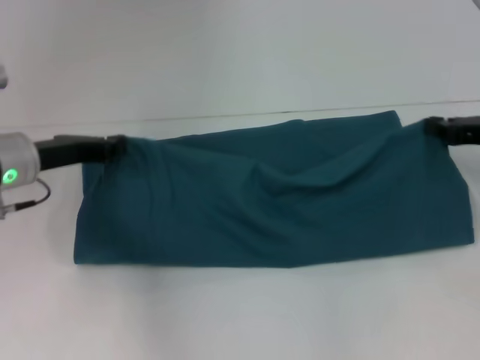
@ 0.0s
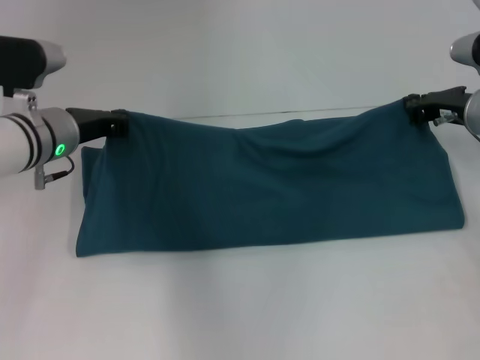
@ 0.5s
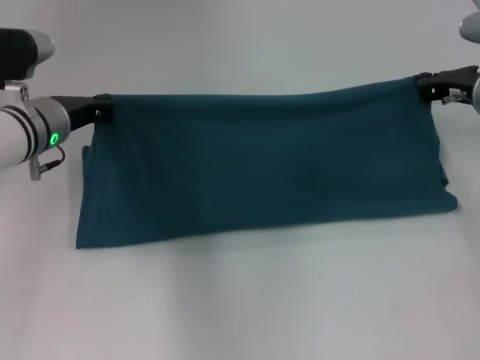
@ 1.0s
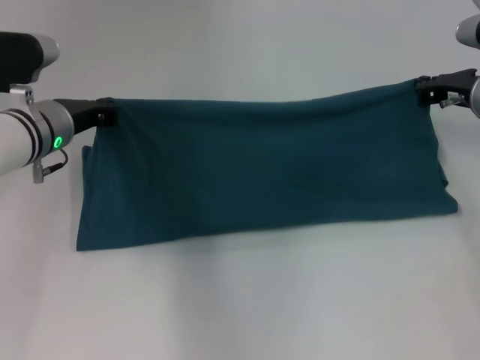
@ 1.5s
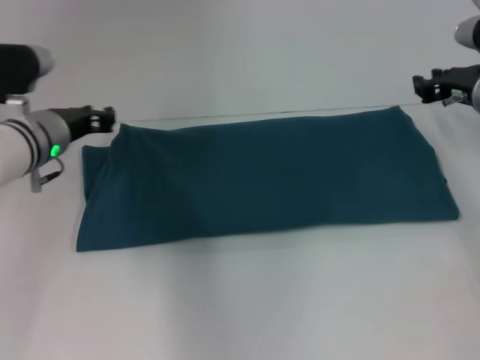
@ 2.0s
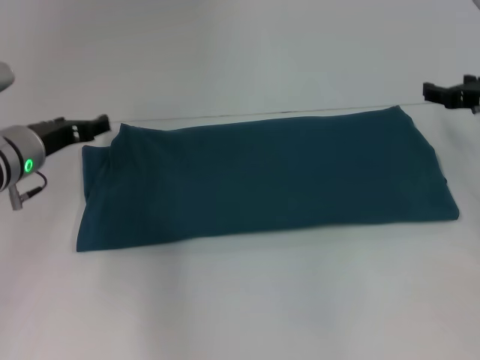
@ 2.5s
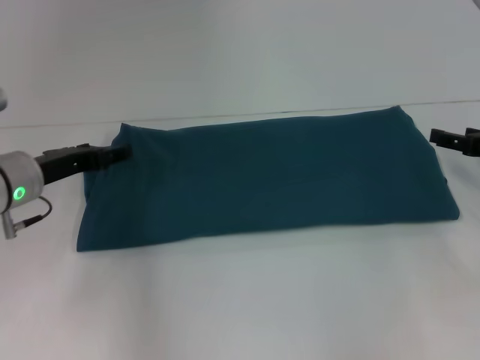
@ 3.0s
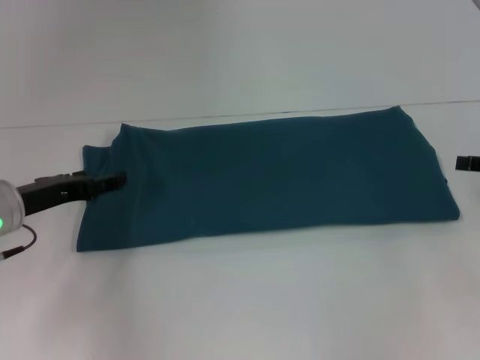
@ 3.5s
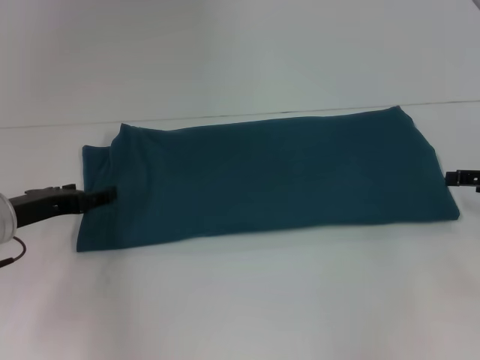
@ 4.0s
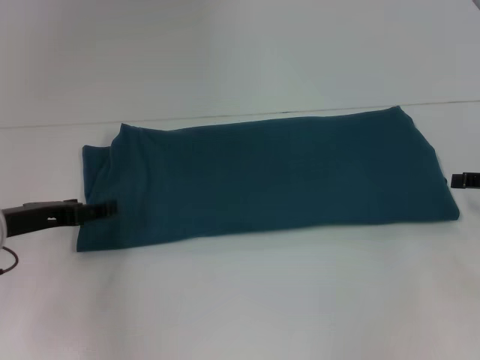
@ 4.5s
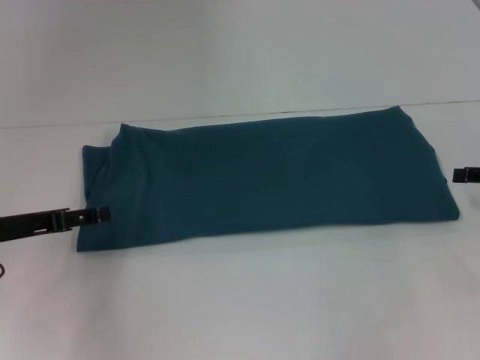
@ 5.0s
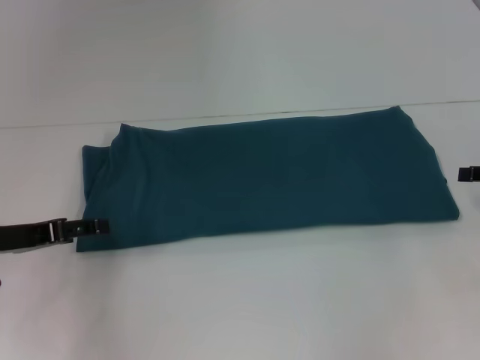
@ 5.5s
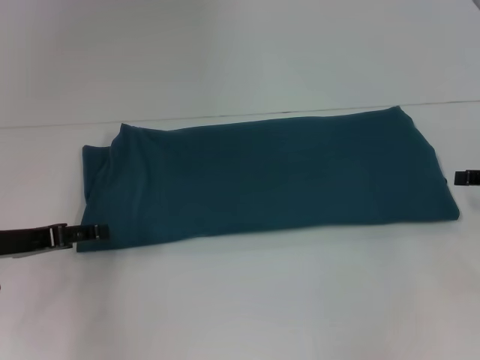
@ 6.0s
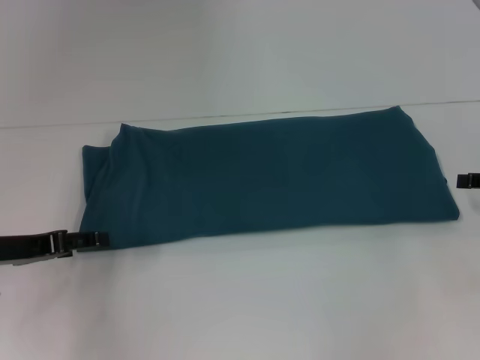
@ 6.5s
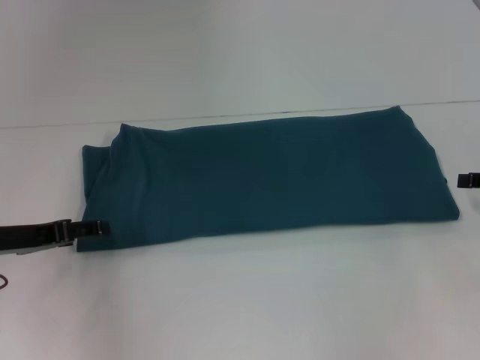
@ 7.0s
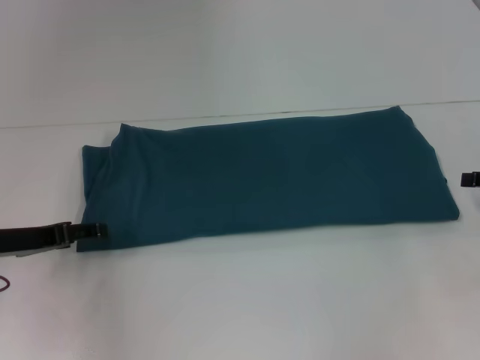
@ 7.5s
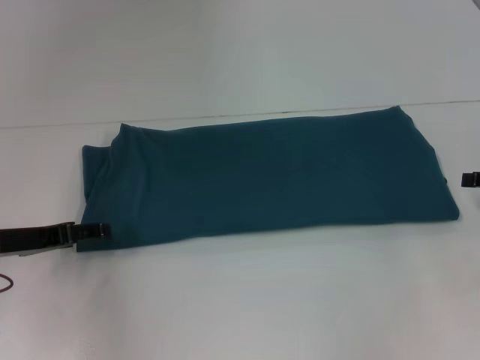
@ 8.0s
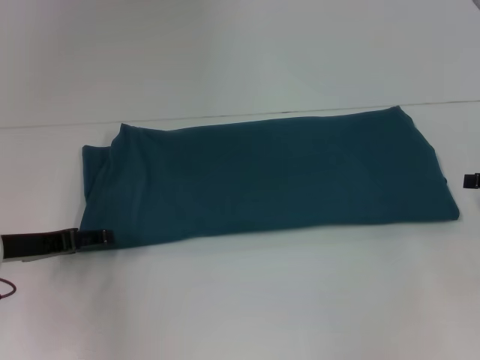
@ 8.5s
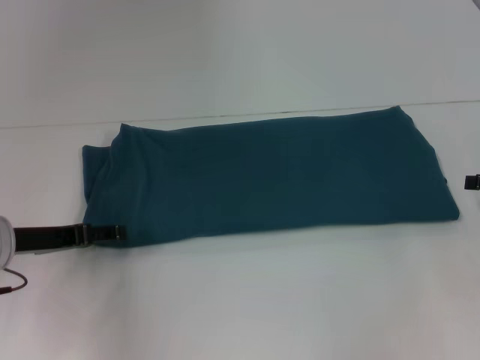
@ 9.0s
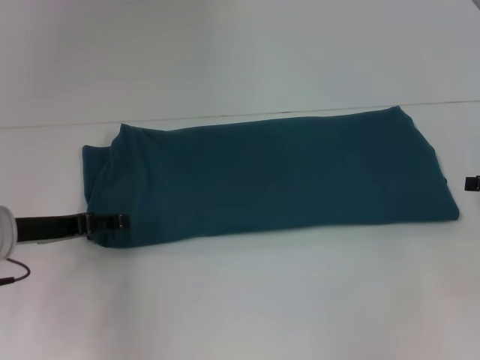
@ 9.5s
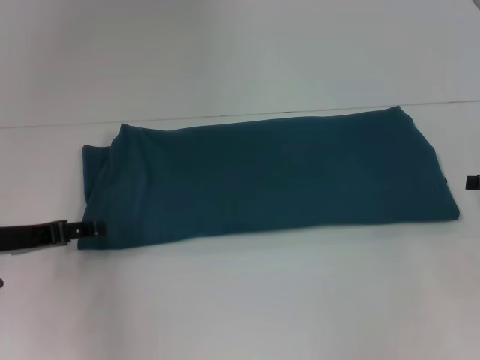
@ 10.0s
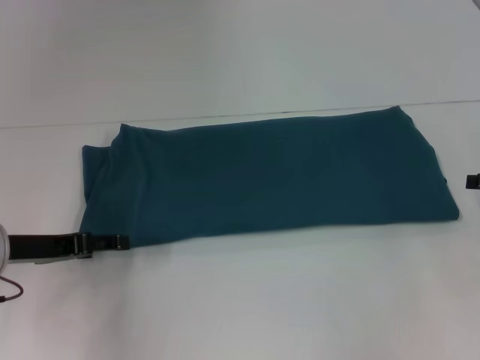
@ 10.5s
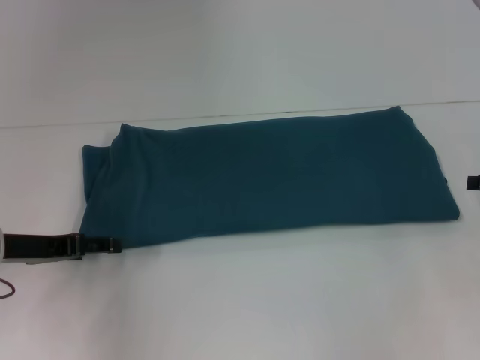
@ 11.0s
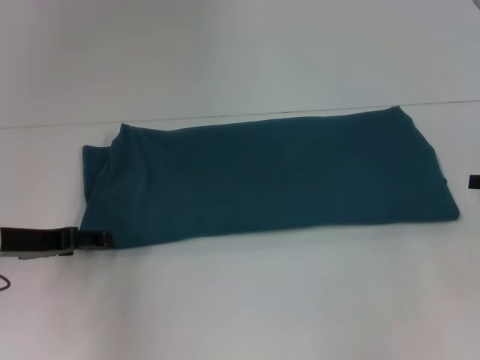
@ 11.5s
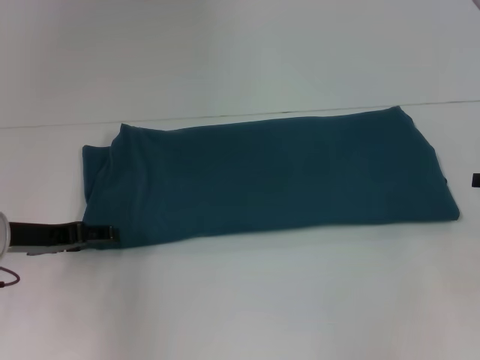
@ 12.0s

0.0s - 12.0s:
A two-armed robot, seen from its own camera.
Step, 0.0s - 2.0s: Fold the clothes to the right.
0.0s - 2.0s: The left gripper moves some 5 cm. The right gripper heads forward, covering about 5 cm.
2.0s - 4.0s: The left gripper heads backward and to the left, covering approximately 10 cm, and opens. The right gripper is displaced backward and to the right by approximately 15 cm, and opens up.
10.0s - 12.0s: The grippers move only a little.

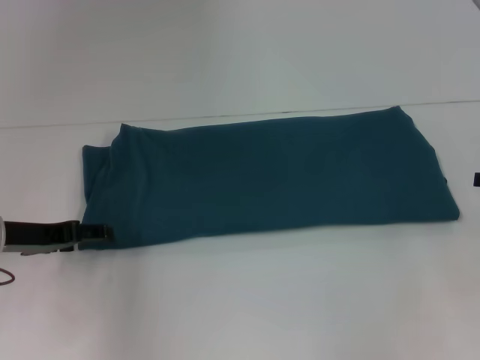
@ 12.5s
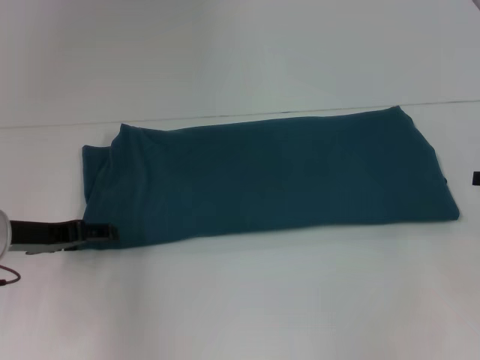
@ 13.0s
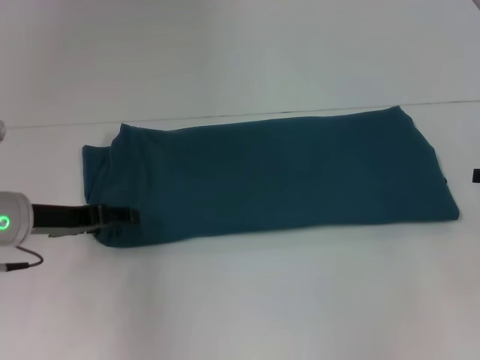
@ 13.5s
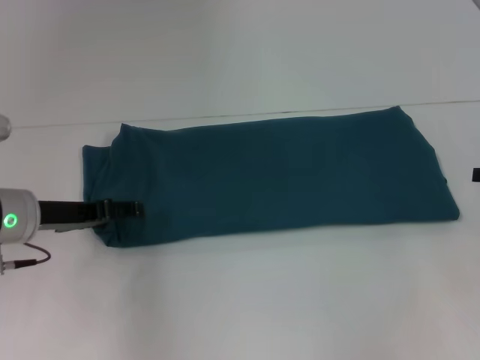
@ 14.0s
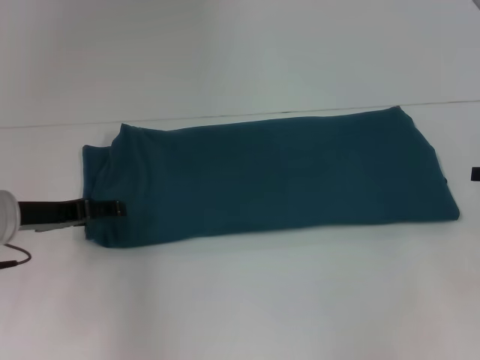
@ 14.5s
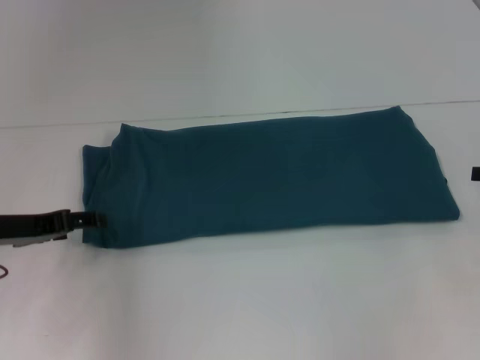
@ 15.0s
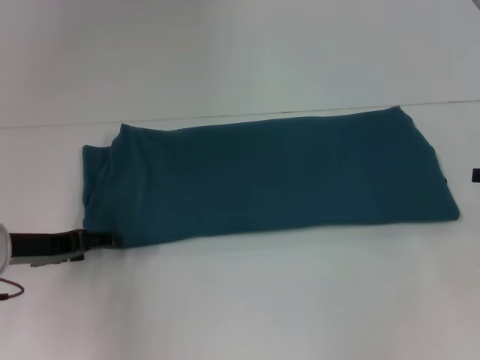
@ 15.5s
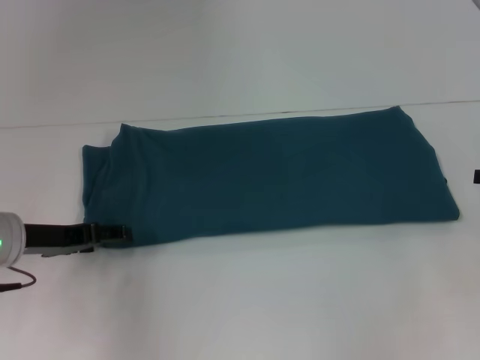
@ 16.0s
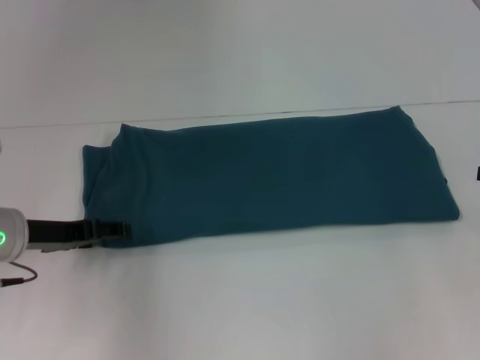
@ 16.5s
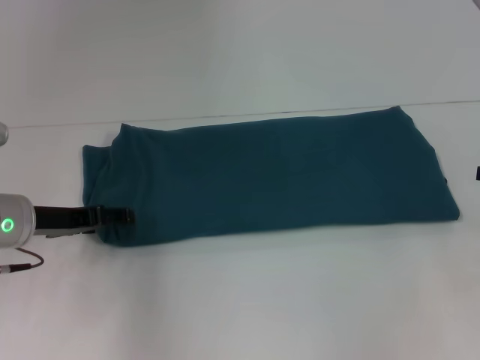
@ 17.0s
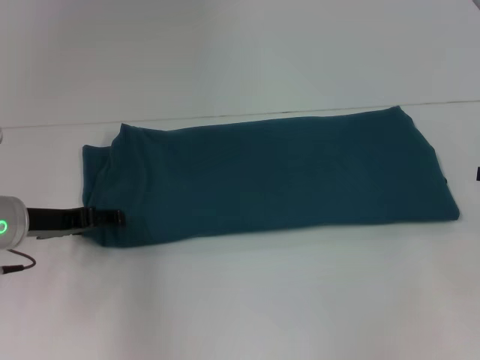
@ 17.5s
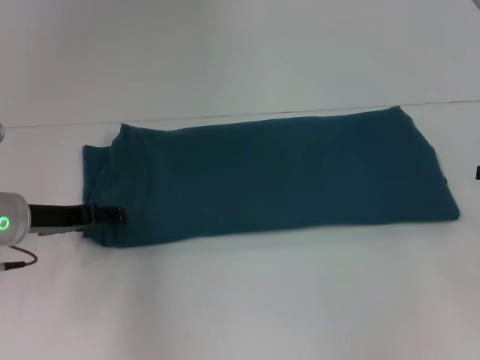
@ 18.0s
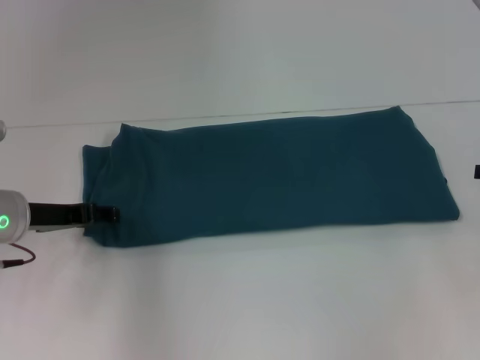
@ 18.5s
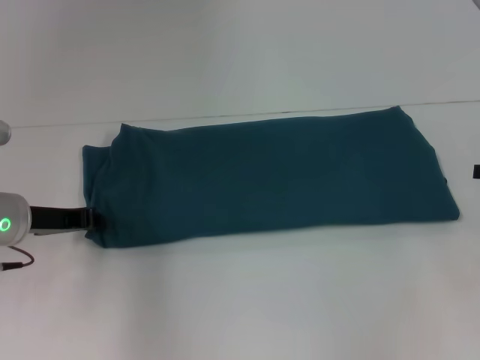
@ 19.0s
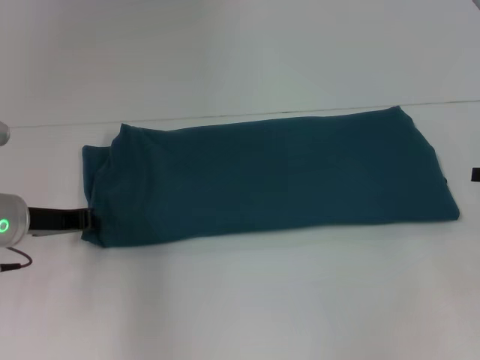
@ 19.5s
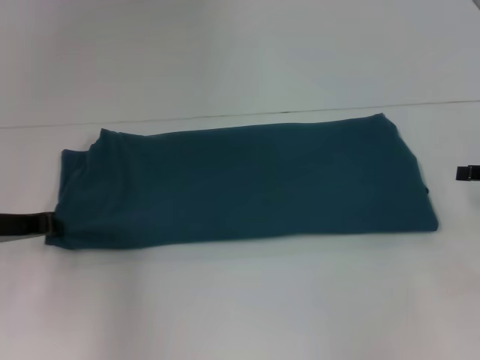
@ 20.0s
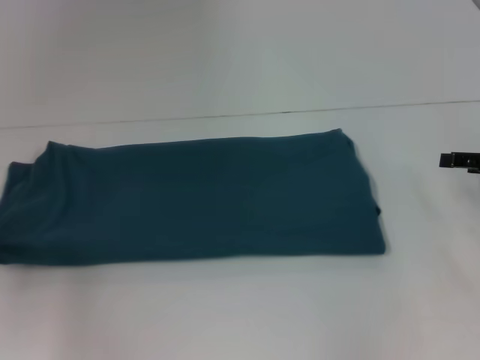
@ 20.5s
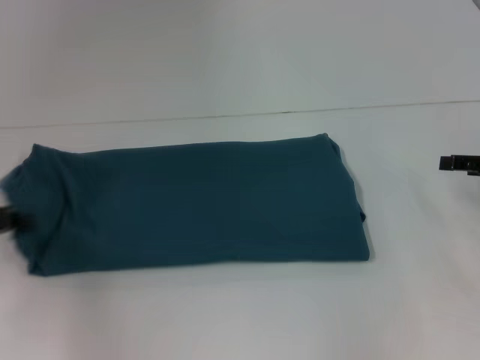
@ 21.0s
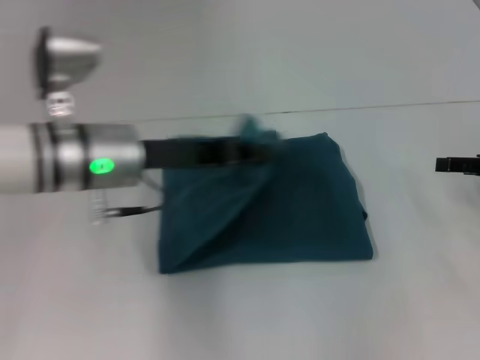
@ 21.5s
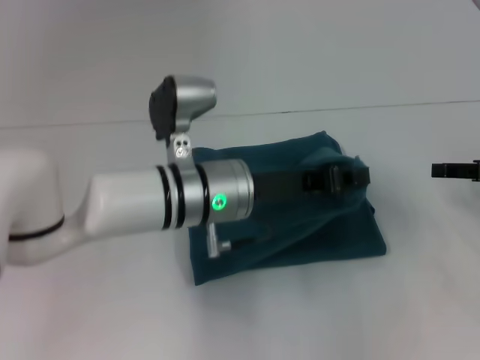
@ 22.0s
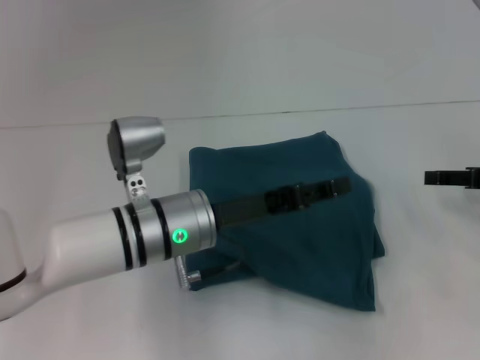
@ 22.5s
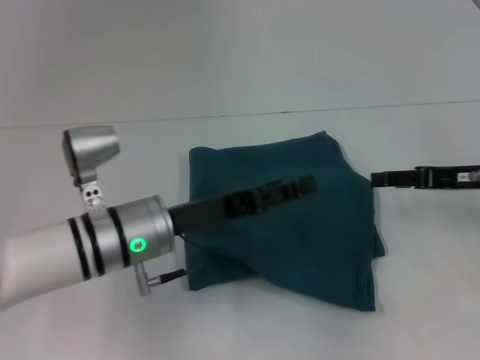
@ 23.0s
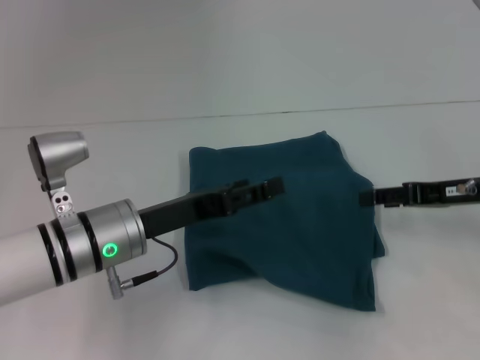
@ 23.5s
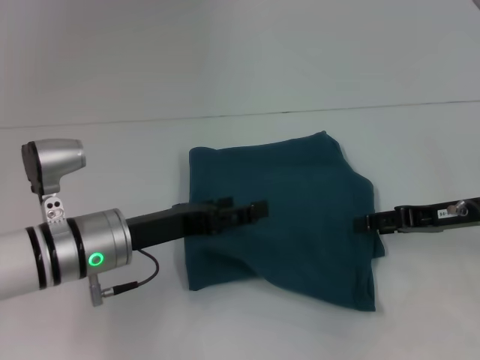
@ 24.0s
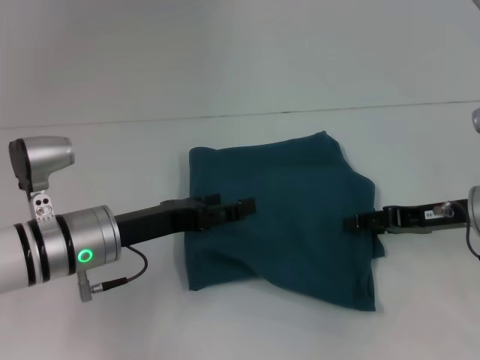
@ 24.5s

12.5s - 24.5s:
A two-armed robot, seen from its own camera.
Step, 12.5s - 22.0s: Fold the clothes to the left.
12.5s - 18.5s: The grippers stay close to where they were, moving slightly.
18.5s - 20.5s: The left gripper is displaced to the left by some 10 cm, and closes its fingers.
20.5s - 22.5s: The left gripper shifts about 30 cm to the right.
22.5s - 24.5s: Both grippers move to the left, approximately 10 cm. The left gripper opens its fingers.

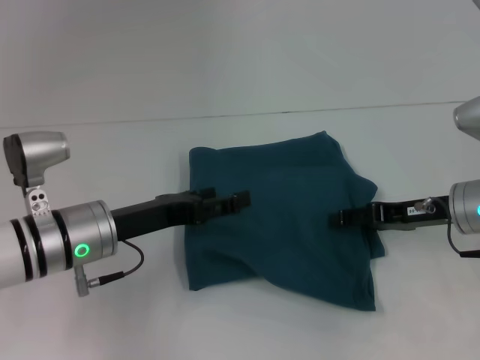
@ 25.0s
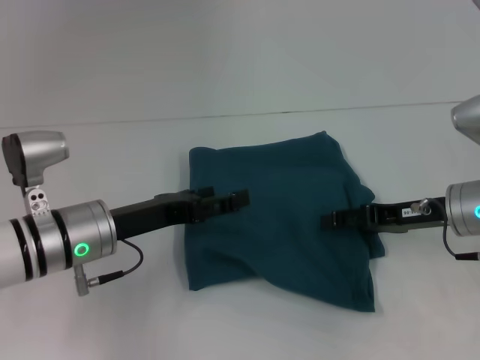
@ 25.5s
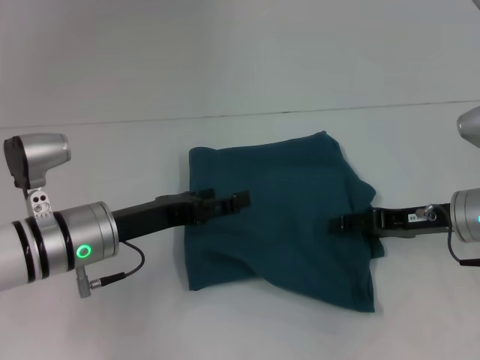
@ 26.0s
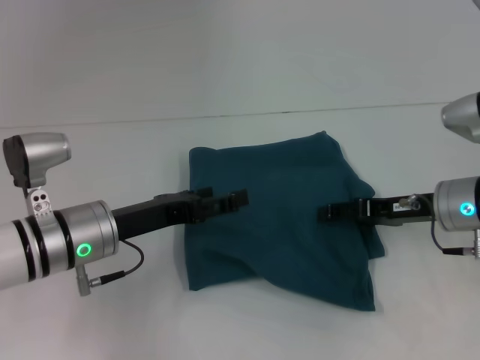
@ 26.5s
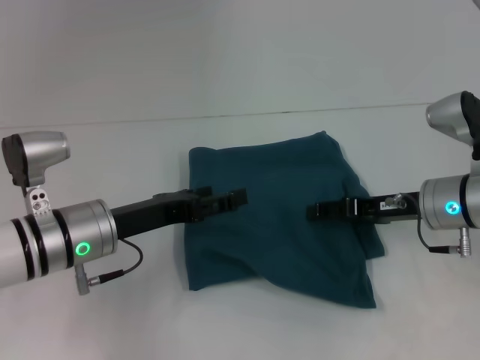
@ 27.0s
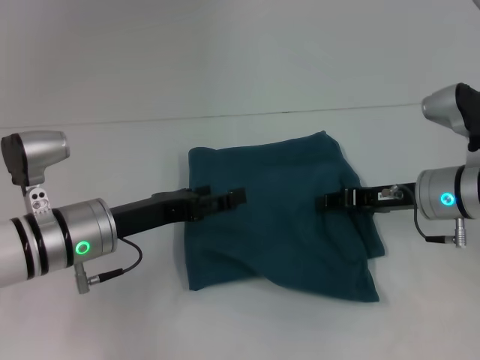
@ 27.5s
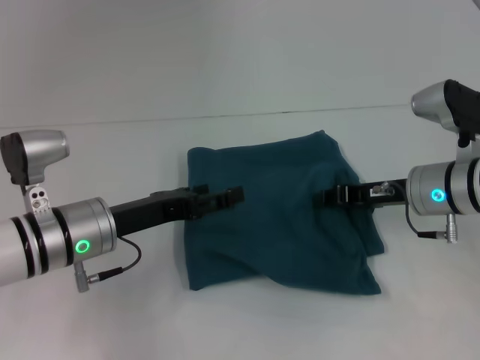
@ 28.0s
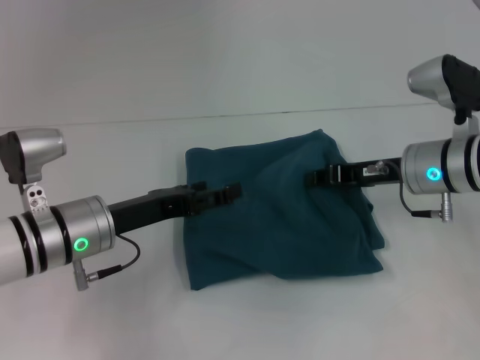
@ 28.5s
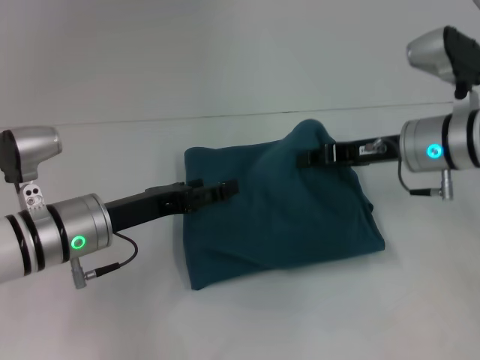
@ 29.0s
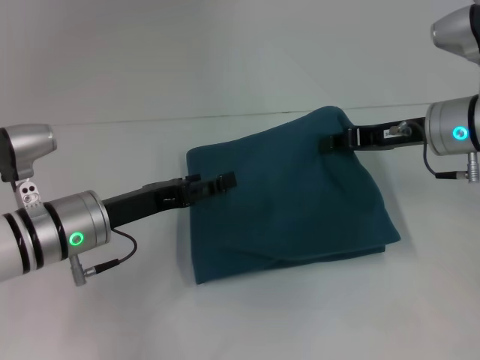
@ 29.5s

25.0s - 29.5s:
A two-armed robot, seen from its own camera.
25.0s - 27.0s: The grippers move only a little.
27.0s - 29.5s: The right gripper shifts roughly 5 cm upward, and closes.
